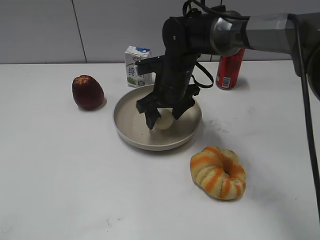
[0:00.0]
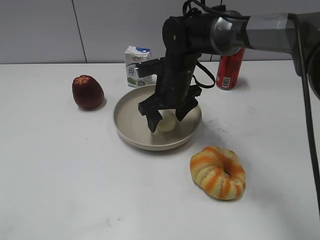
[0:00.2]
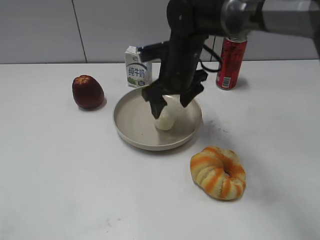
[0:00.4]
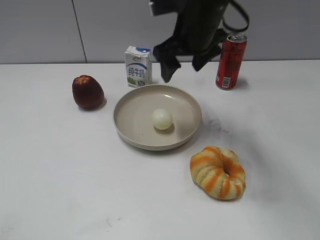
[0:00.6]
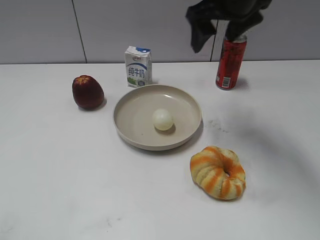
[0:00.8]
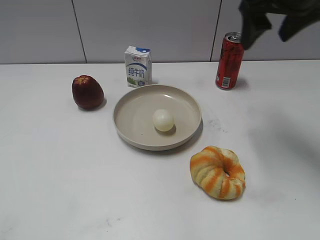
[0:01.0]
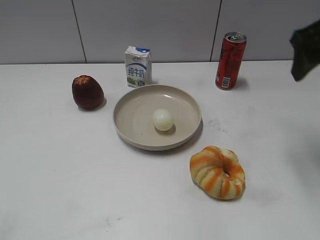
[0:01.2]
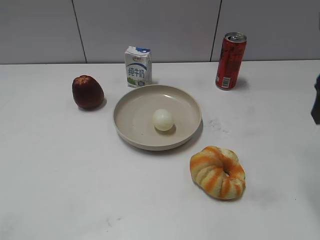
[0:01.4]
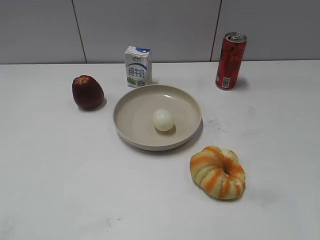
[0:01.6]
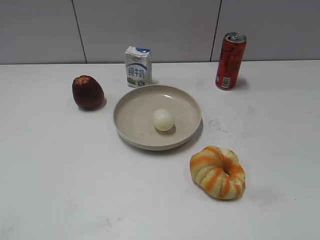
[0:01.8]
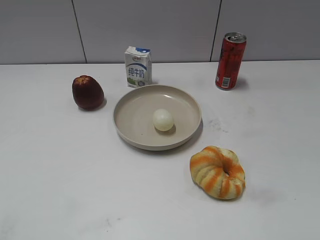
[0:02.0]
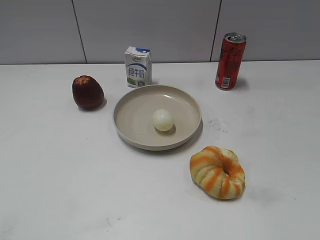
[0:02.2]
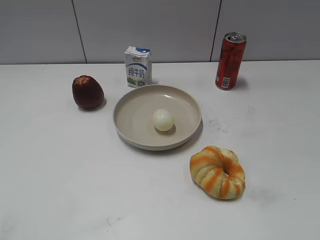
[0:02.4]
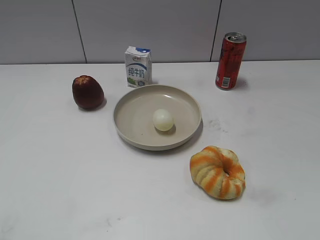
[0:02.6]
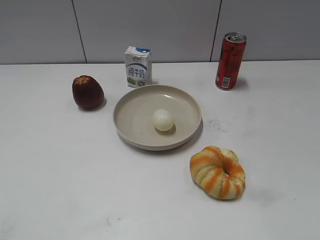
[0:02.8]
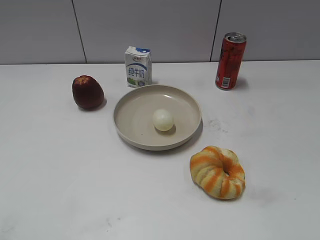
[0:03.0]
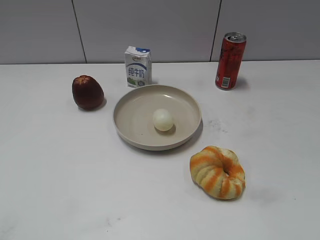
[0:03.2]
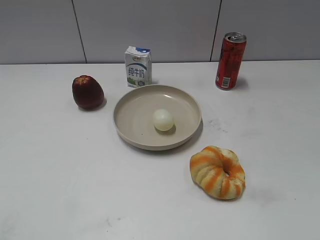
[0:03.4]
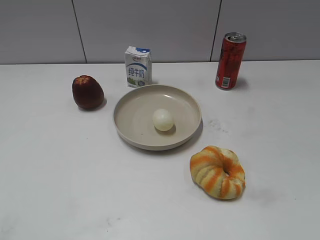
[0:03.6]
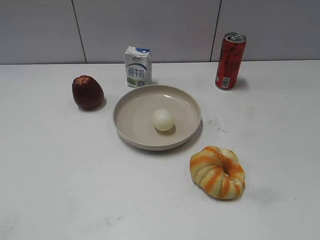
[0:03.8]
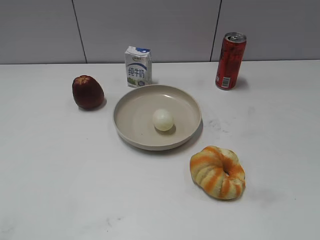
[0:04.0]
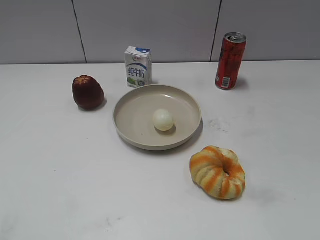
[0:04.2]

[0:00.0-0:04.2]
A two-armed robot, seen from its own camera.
0:00.0 to 0:01.4: The right gripper shifts some 30 cm to the right, upward and backward, and opens its fingers.
